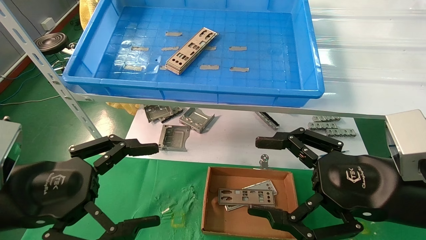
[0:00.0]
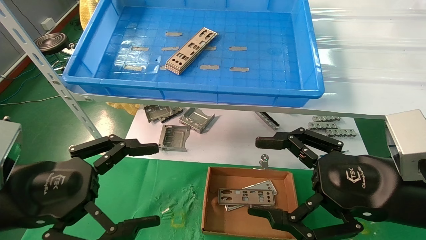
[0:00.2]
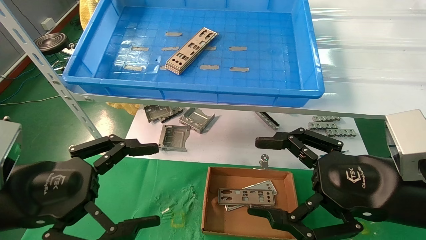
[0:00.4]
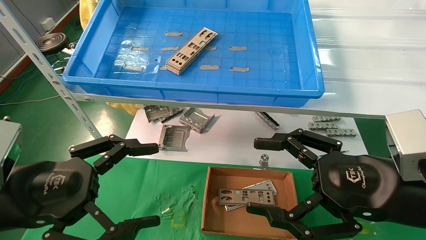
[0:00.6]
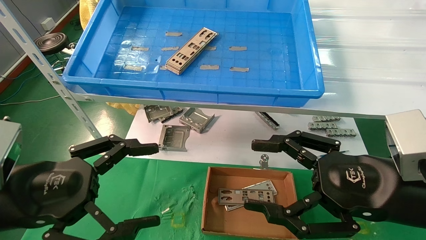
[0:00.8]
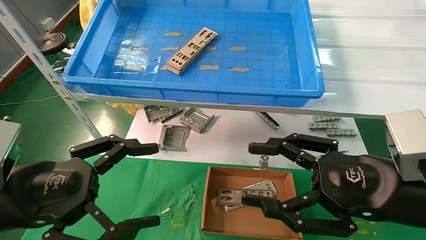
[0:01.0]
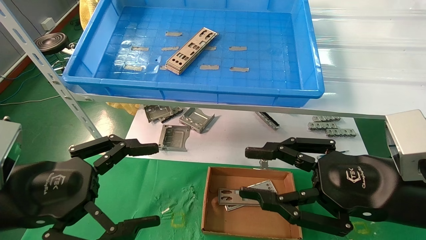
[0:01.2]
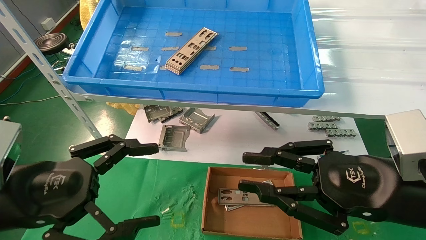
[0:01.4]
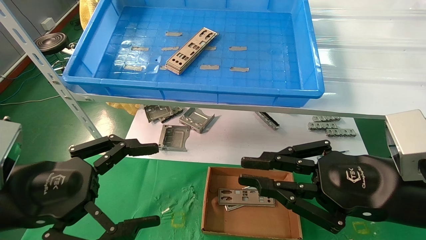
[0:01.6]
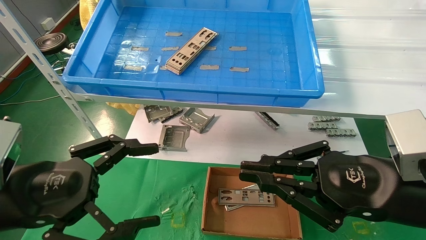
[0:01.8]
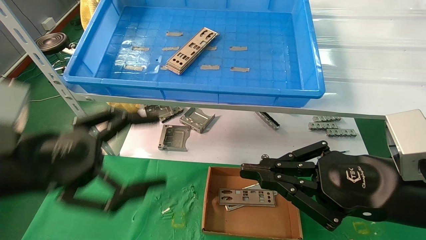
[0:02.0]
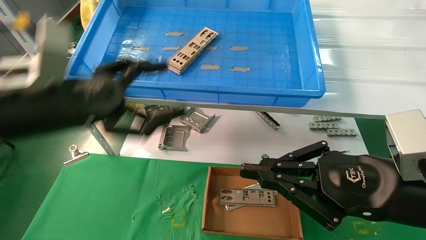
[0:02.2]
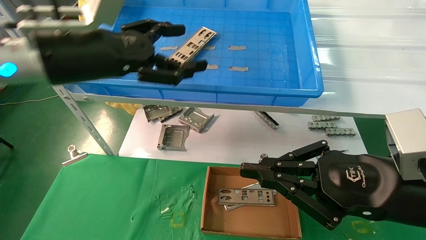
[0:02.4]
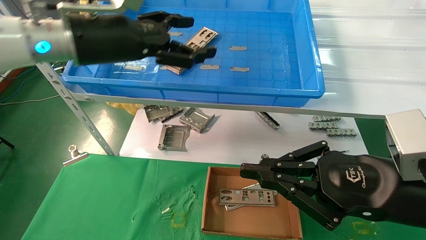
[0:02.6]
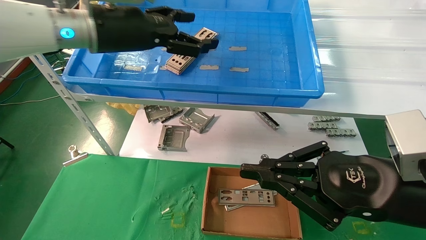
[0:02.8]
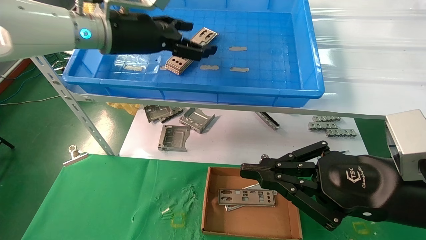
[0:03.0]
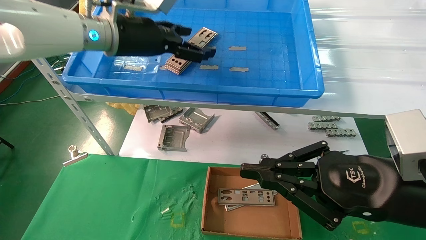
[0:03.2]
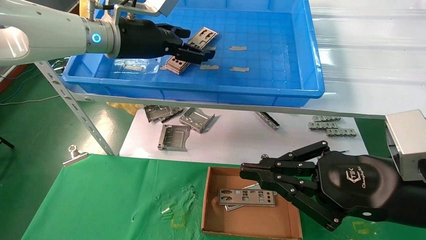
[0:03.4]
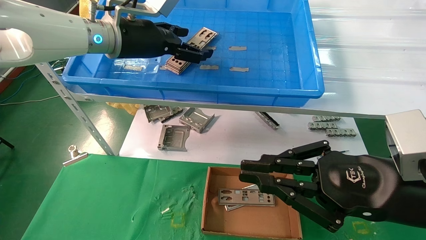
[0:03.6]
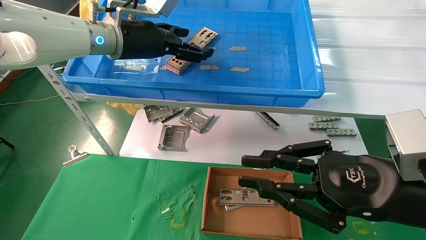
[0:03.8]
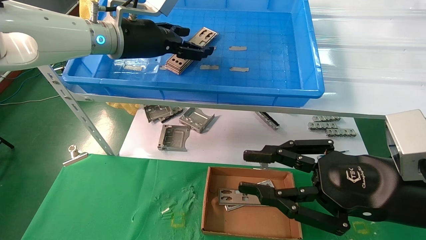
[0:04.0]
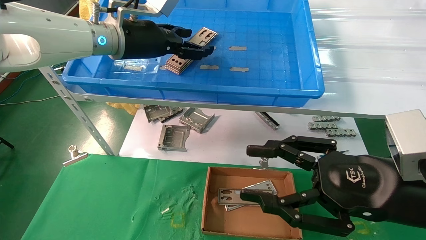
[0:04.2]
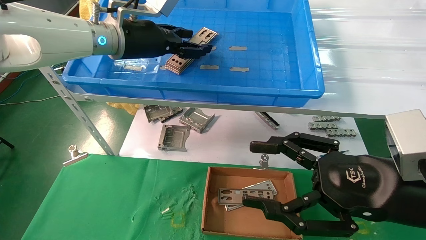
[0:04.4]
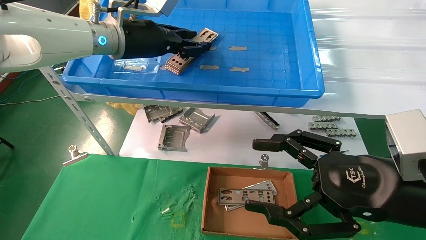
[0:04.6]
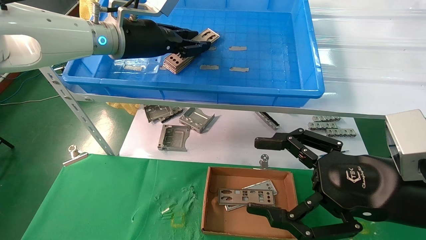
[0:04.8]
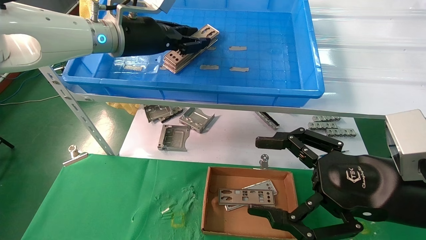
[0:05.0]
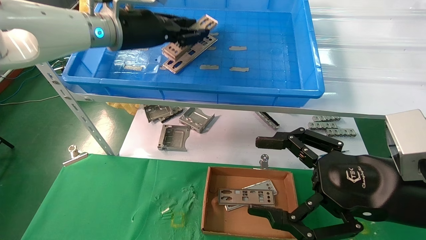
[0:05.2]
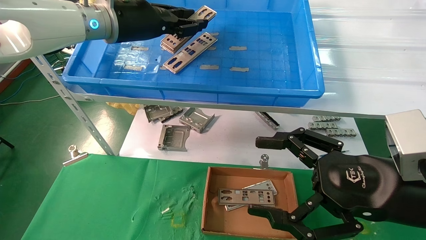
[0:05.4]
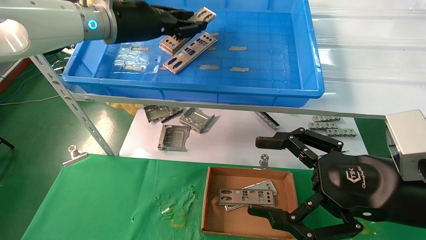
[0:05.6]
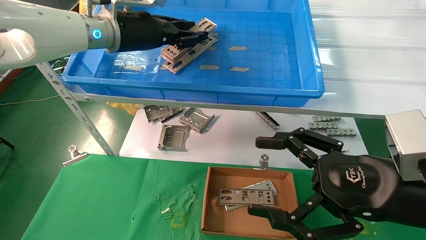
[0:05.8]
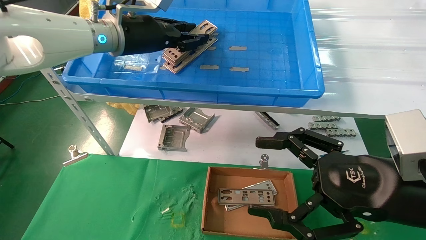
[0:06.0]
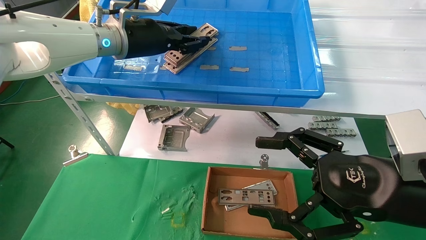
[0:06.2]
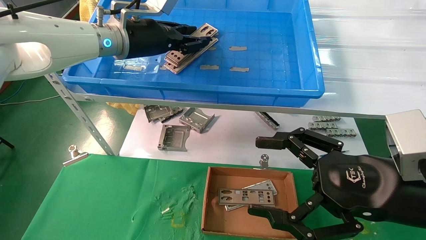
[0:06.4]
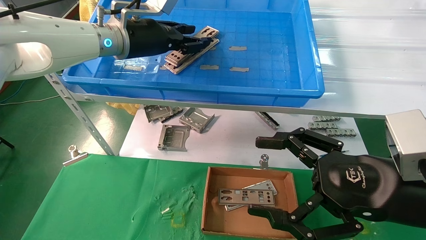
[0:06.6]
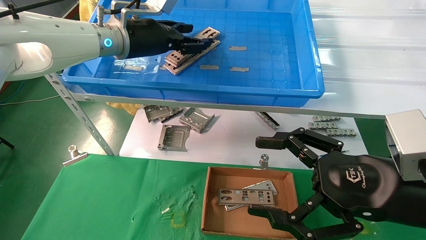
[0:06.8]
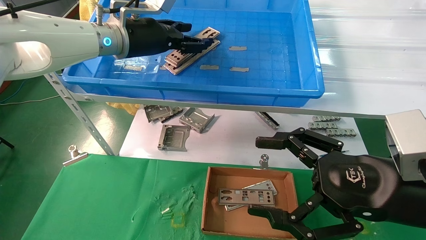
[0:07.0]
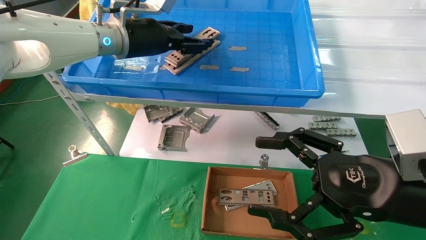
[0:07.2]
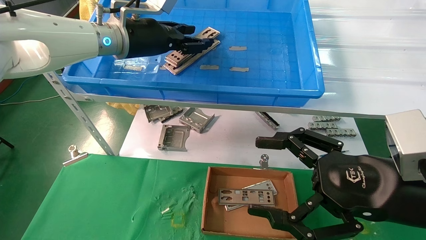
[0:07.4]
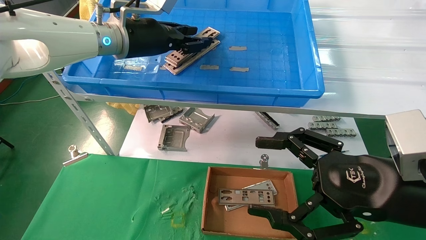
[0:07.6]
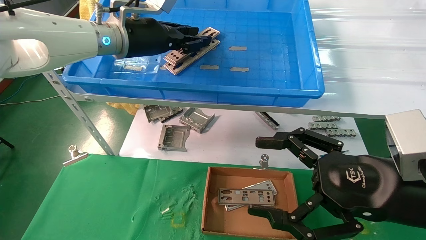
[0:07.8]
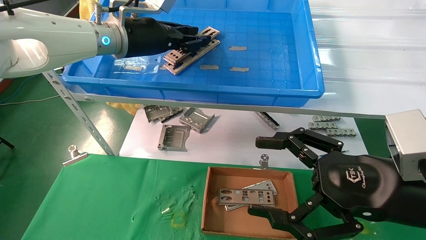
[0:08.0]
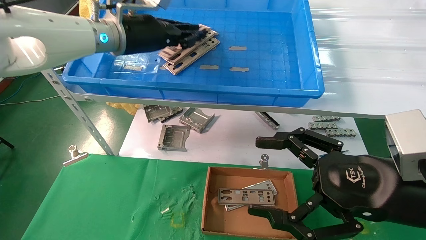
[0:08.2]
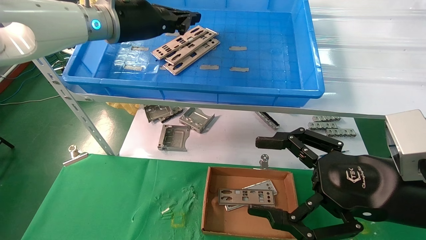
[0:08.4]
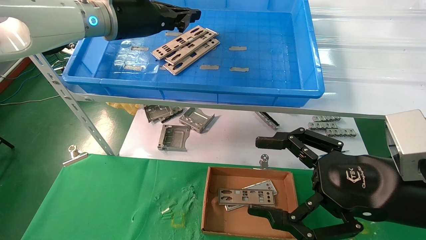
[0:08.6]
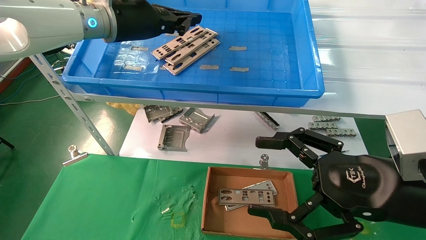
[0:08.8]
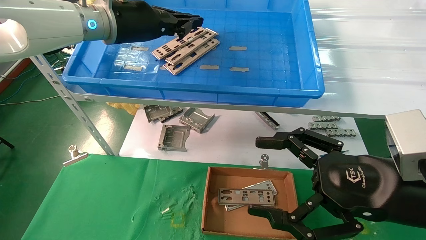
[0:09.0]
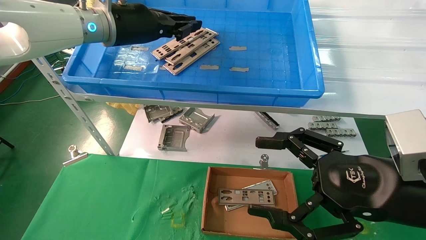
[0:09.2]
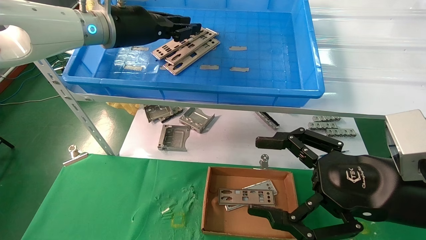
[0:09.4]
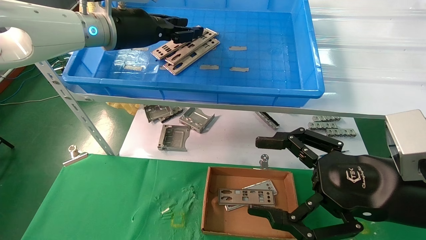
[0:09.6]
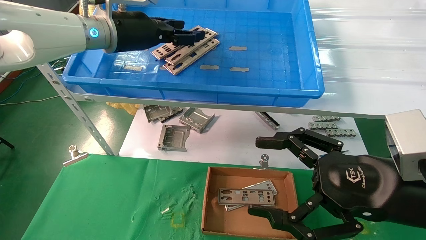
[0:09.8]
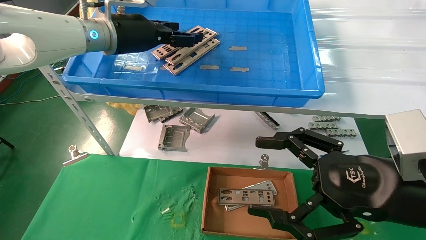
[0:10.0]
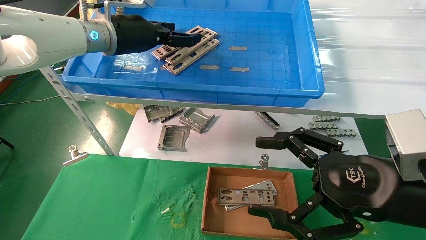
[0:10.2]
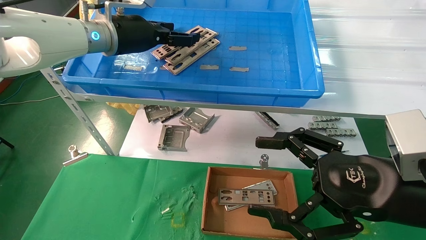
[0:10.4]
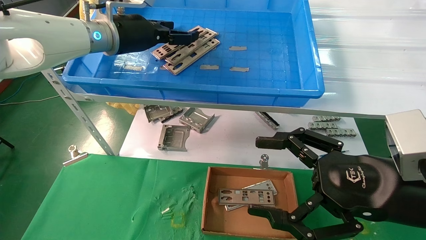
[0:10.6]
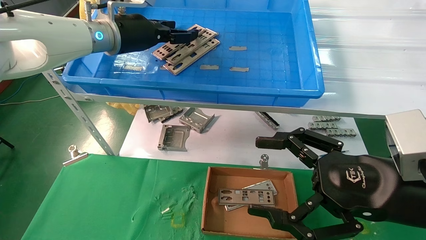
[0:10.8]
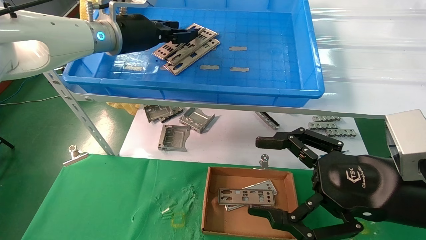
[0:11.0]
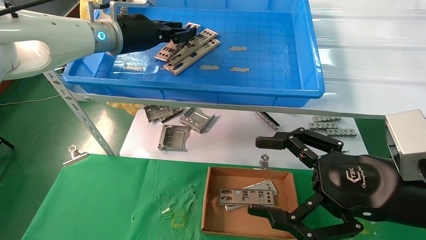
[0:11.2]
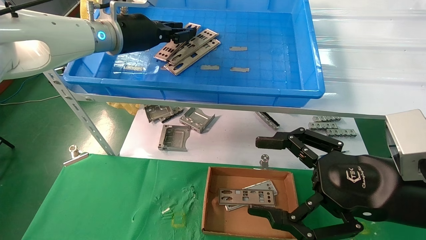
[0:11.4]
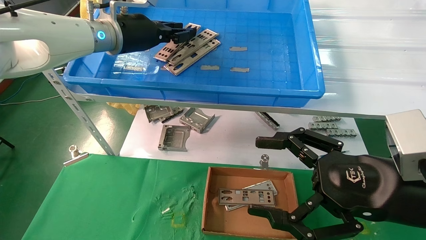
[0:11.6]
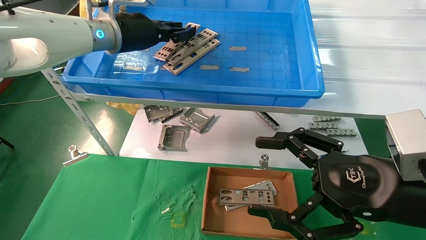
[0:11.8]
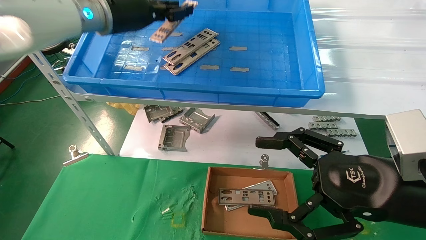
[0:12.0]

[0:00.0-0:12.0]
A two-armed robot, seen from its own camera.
Task of the whole recording: pick up the parts on the tray and put them in the cardboard box.
Step, 0:02.4 to 0:11.4: Pick up the IO bracket from the container box.
0:00.0 to 0:01.6: The right gripper closes up.
0:01.6 to 0:03.0: The left gripper moves forward, upward and to the right, approximately 30 cm.
0:03.0 to 0:04.4: The right gripper opens.
0:04.4 to 0:06.0: The left gripper closes its fingers; the right gripper opens its fingers.
0:06.0 to 0:07.6: Both grippers stay put.
0:07.6 to 0:09.0: The left gripper closes up.
0:09.0 to 0:10.4: The left gripper opens up.
0:10.4 to 0:12.0: The left gripper closes its fingers.

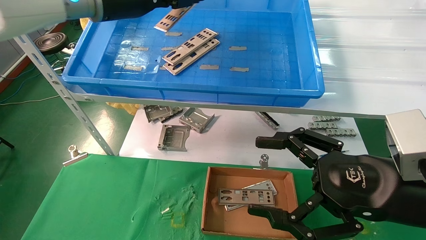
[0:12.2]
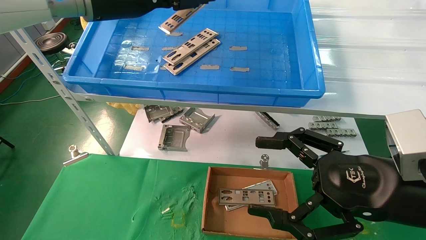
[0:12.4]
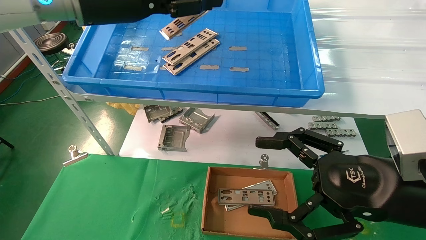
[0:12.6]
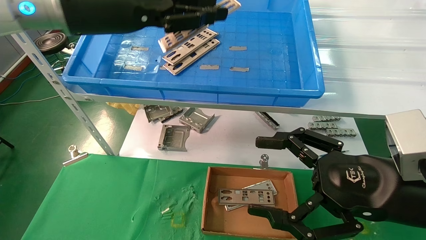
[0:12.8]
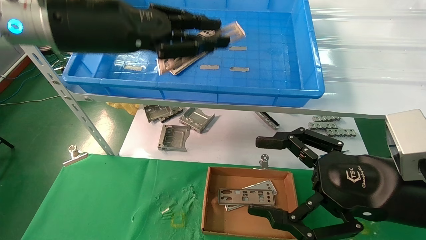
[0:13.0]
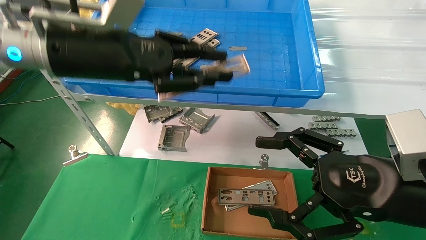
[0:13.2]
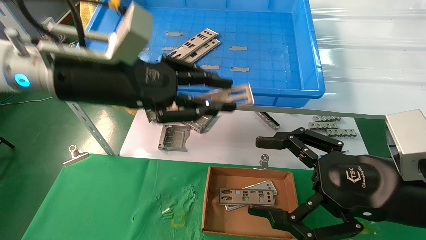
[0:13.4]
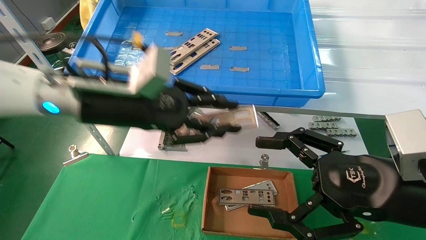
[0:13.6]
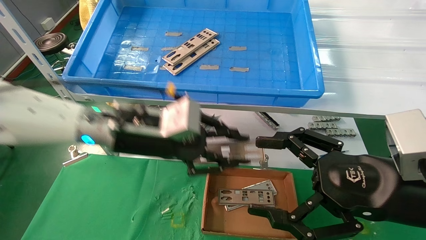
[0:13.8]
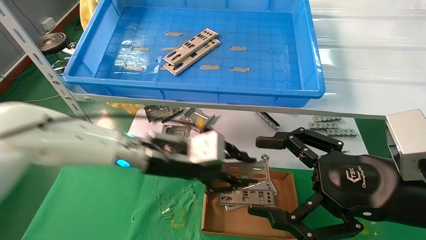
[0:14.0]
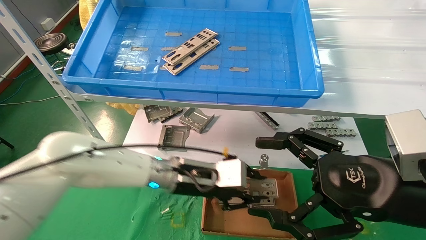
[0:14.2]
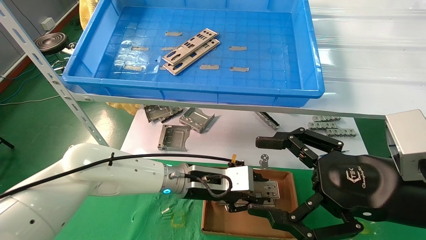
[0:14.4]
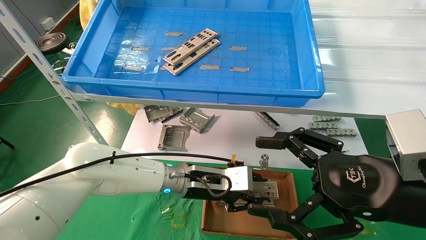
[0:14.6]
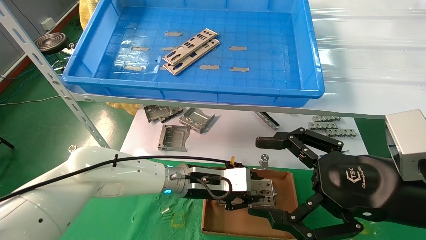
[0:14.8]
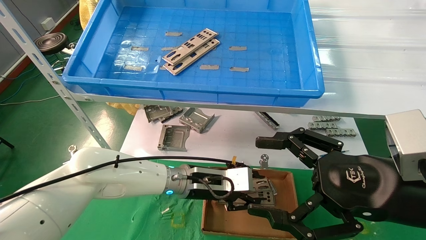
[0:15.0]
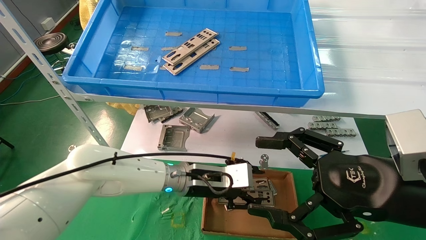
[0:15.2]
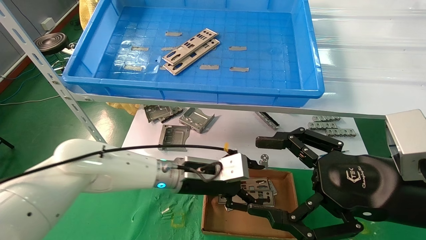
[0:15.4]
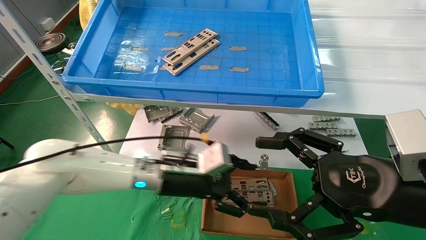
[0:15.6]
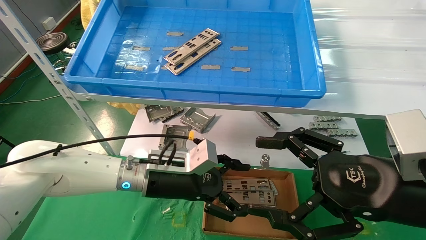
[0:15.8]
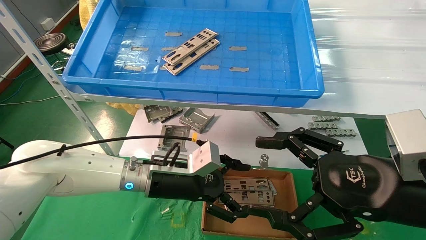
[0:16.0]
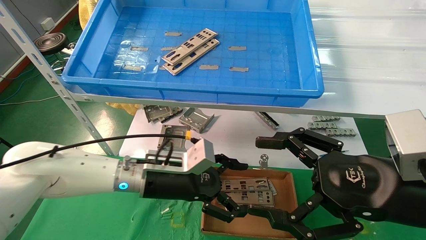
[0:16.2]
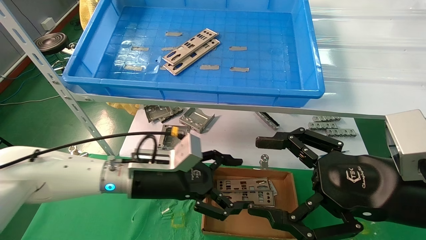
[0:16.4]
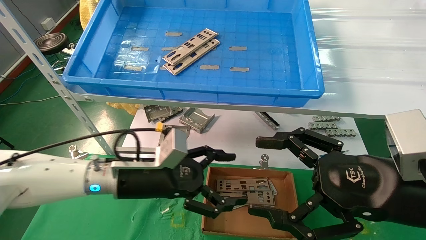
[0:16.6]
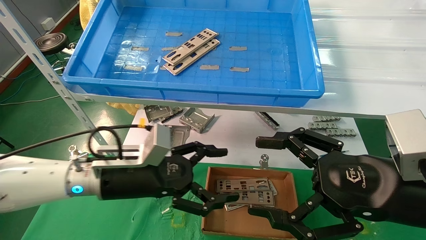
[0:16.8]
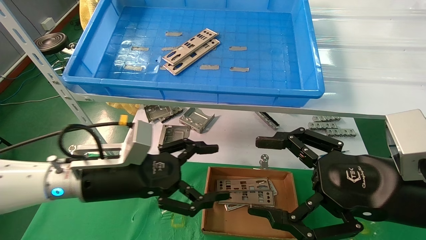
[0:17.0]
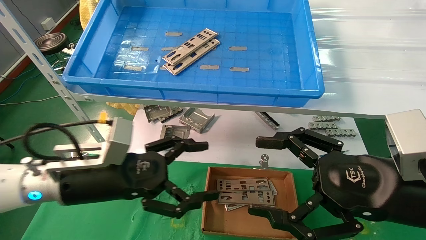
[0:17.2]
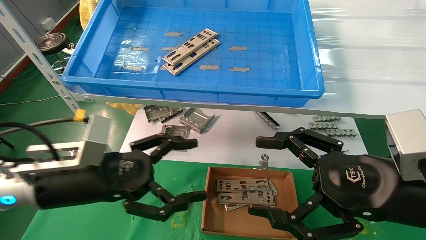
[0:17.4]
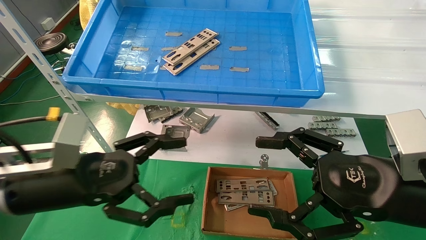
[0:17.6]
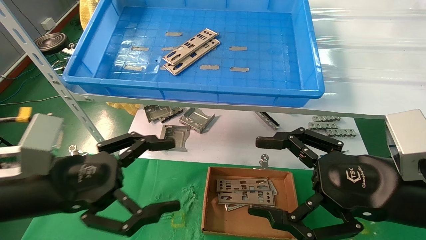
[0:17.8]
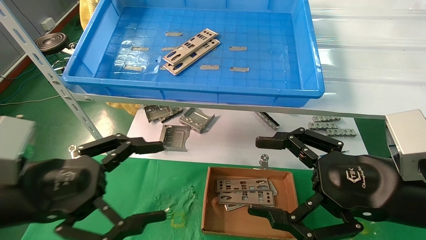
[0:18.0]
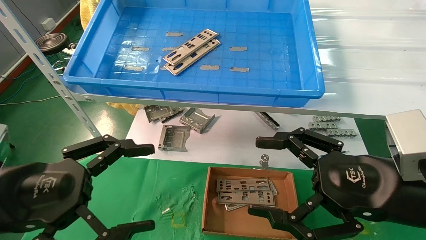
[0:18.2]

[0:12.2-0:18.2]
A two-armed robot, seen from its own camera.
Task of the whole recording: pick up the parts on the tray and put them in the cardboard box.
Step, 0:12.2 to 0:14.8: Place the IO bracket into the ingredient slot.
0:12.2 to 0:13.8: The left gripper is displaced downward by about 20 cm.
0:13.8 to 0:15.2: The left gripper shifts roughly 15 cm downward, to the right and forward.
0:15.2 to 0:16.6: The left gripper heads to the left and backward, covering about 10 cm, and opens its fingers.
0:16.6 to 0:18.2: The left gripper travels backward, to the left and upward by approximately 20 cm.
